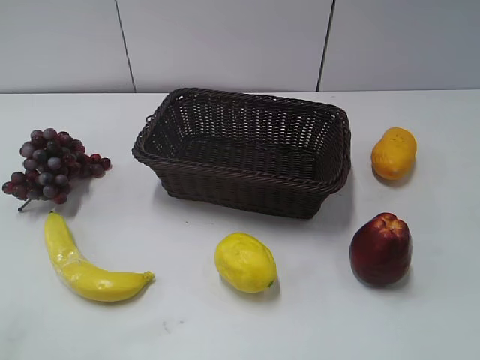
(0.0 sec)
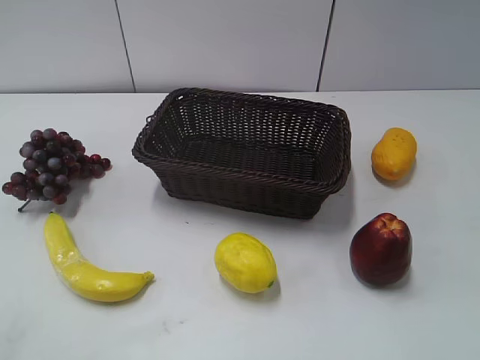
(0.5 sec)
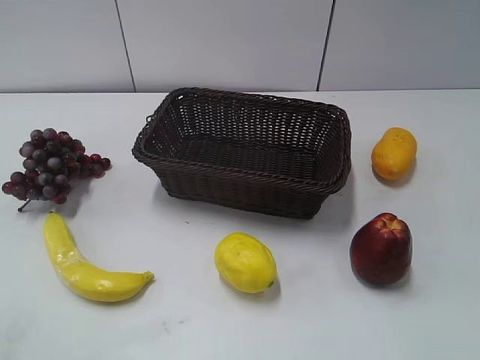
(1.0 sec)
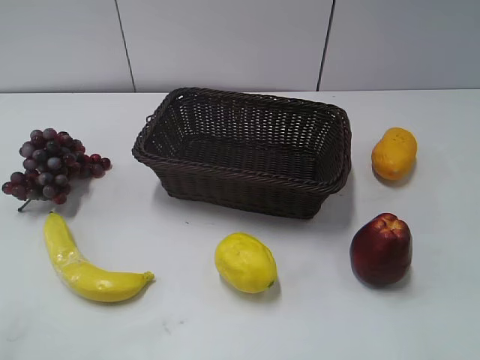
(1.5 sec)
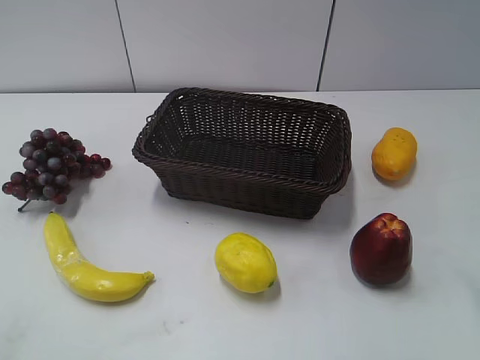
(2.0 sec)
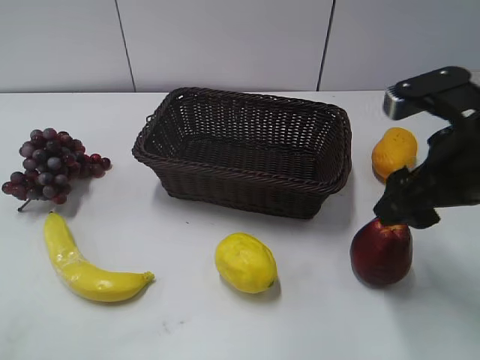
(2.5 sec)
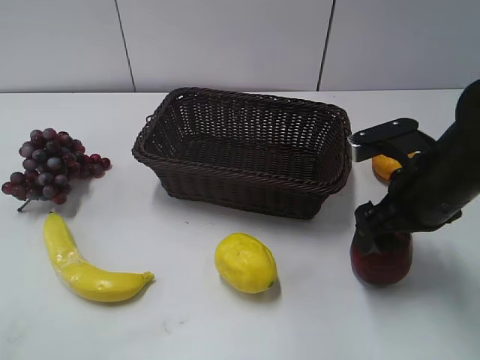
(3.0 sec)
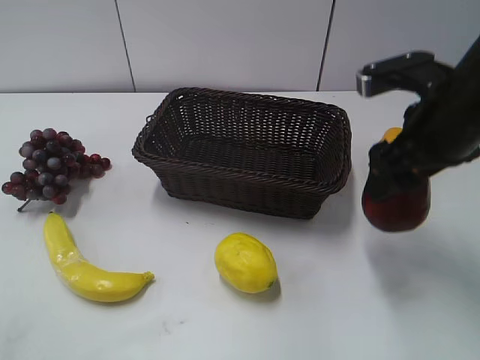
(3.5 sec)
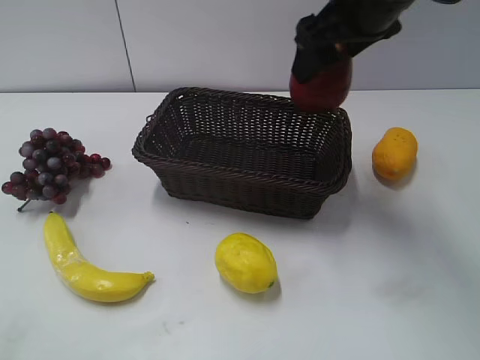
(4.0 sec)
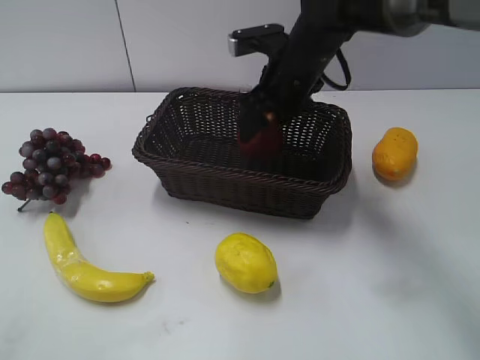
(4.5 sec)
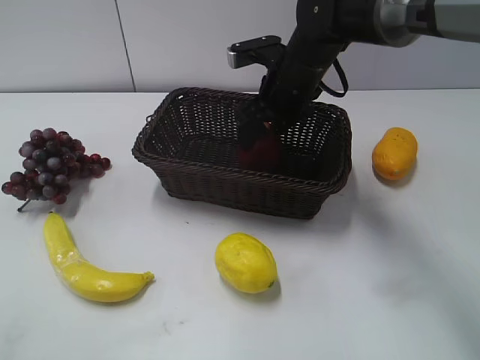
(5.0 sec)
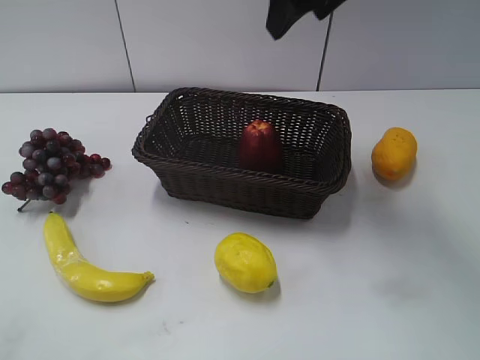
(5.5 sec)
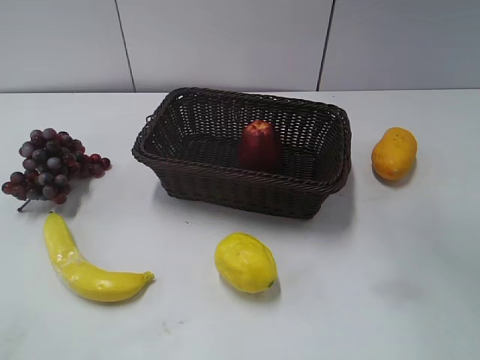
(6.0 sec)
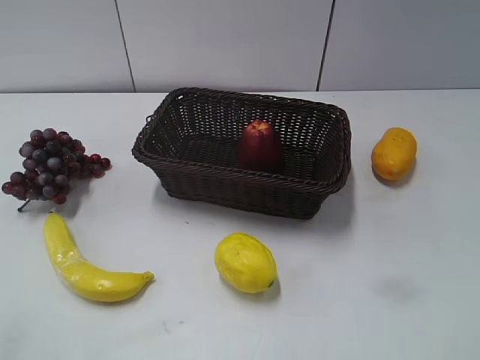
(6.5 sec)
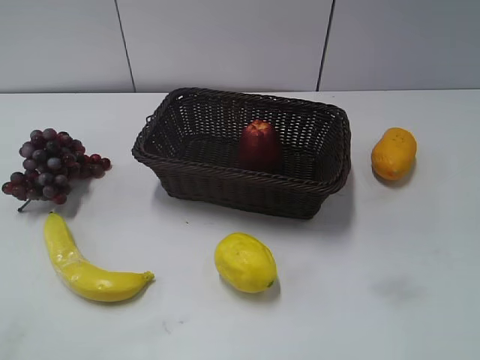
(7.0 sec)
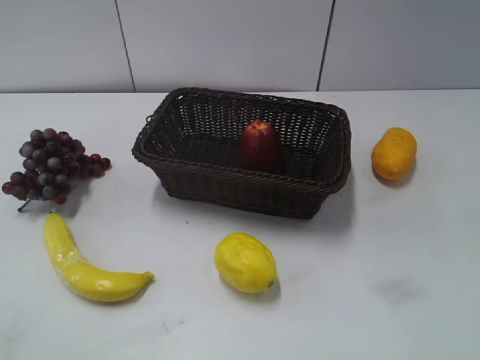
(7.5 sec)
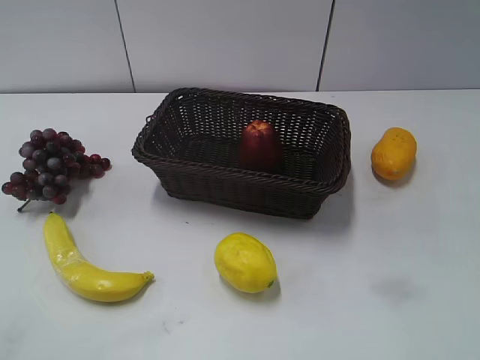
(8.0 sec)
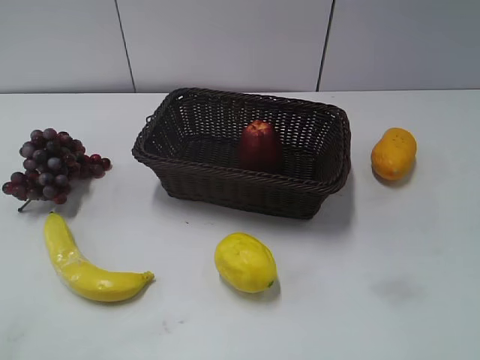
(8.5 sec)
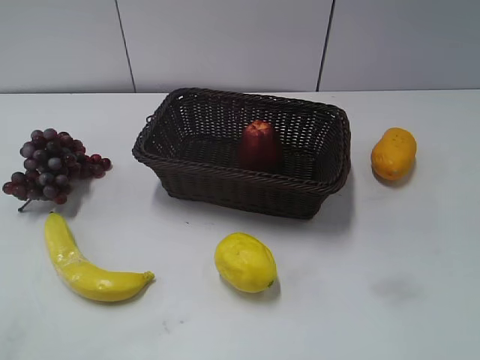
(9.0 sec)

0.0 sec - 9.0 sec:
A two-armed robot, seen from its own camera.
Step, 2.5 sec - 3.0 sec: Grasp the apple with right gripper.
Step, 3.5 sec - 4.5 sec: Place the apple in the basket with right gripper.
2.0 sec - 4.5 sec: The right gripper is displaced forward and to the left by roughly 35 cm.
4.5 sec - 7.0 sec: The right gripper shifts some 40 cm backward and to the right.
